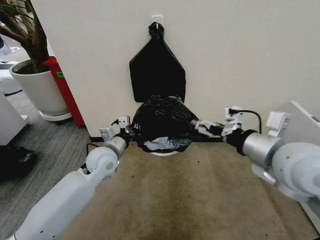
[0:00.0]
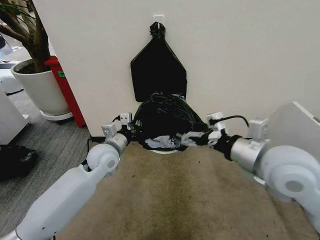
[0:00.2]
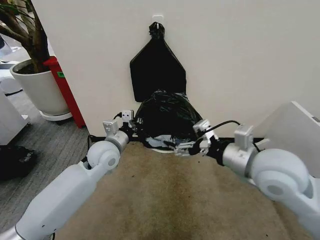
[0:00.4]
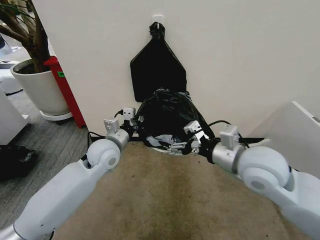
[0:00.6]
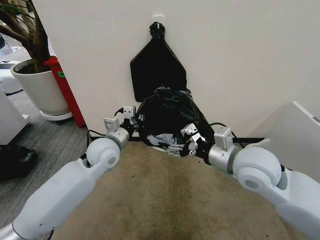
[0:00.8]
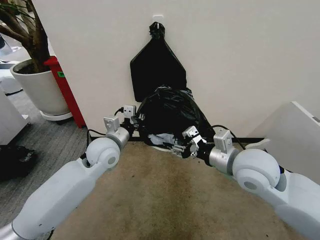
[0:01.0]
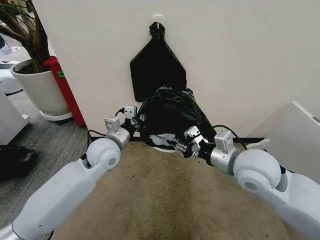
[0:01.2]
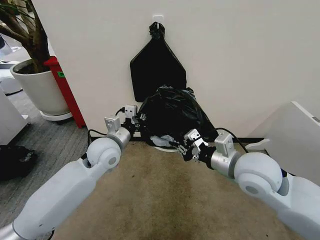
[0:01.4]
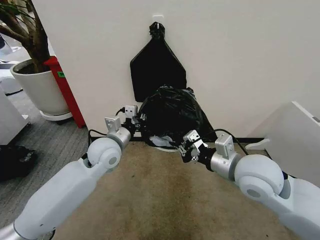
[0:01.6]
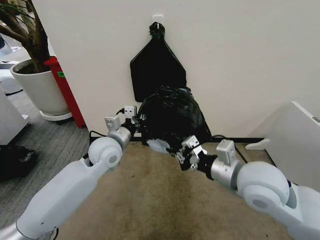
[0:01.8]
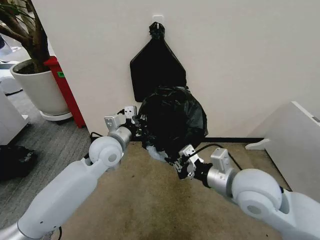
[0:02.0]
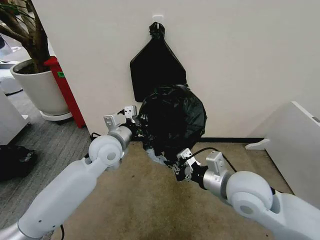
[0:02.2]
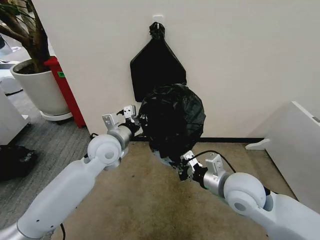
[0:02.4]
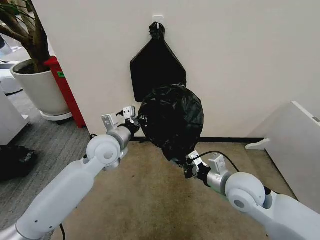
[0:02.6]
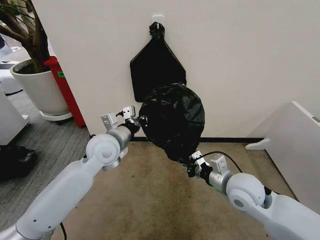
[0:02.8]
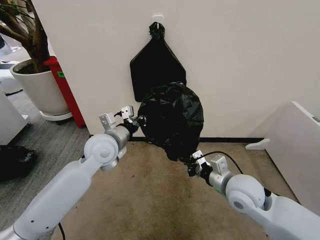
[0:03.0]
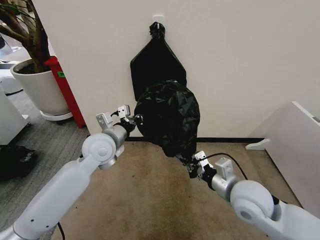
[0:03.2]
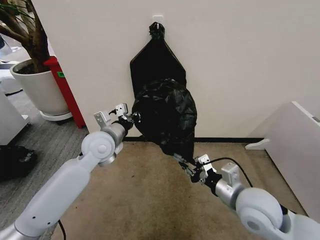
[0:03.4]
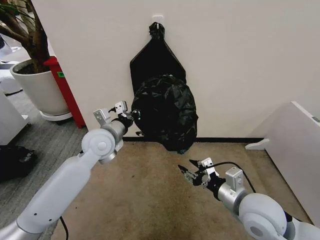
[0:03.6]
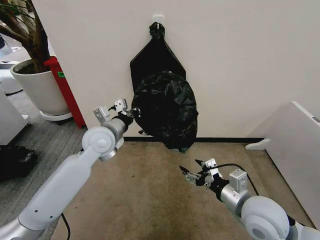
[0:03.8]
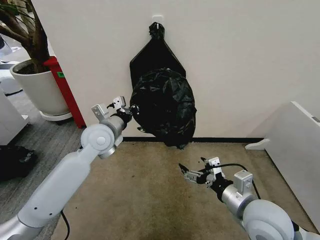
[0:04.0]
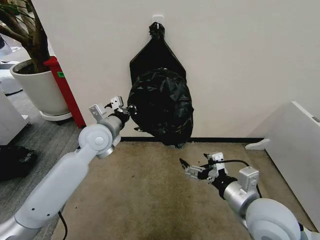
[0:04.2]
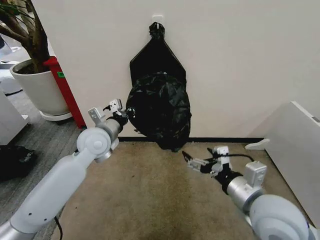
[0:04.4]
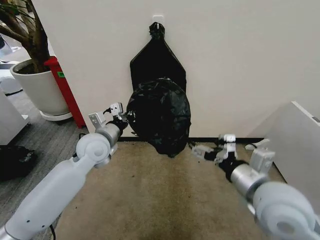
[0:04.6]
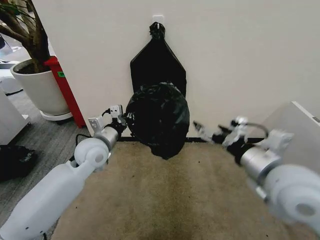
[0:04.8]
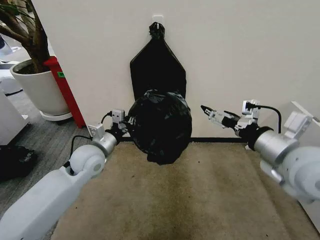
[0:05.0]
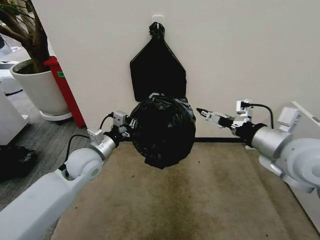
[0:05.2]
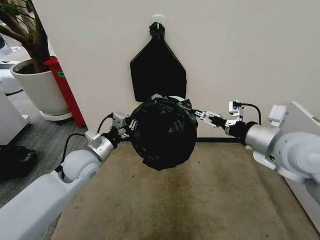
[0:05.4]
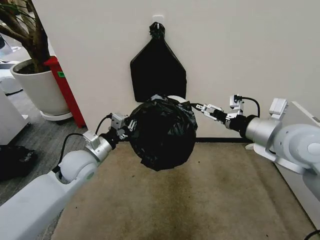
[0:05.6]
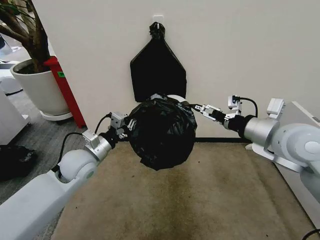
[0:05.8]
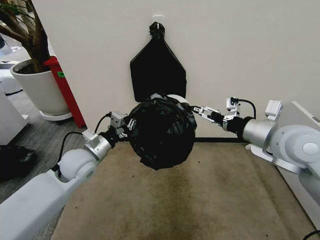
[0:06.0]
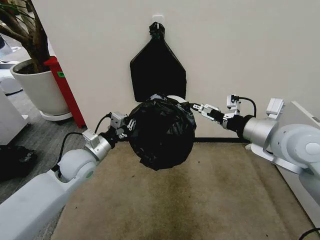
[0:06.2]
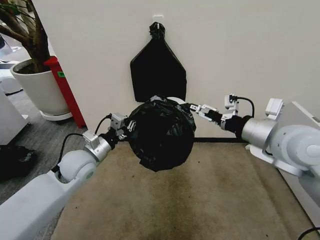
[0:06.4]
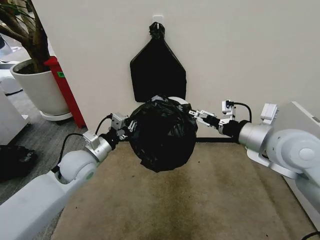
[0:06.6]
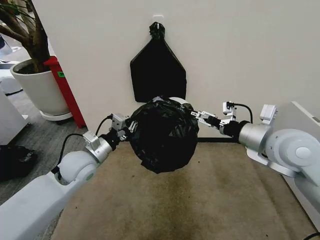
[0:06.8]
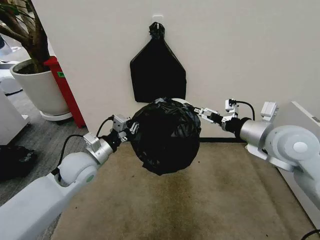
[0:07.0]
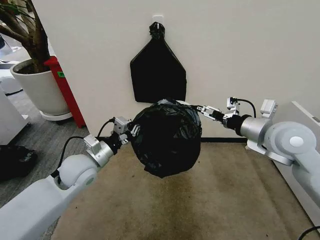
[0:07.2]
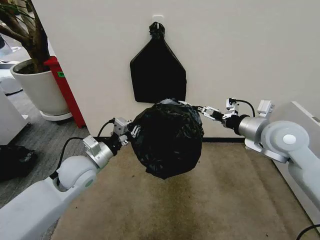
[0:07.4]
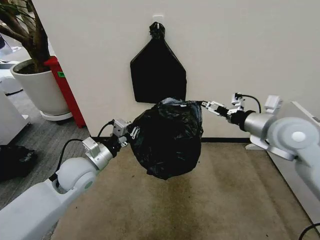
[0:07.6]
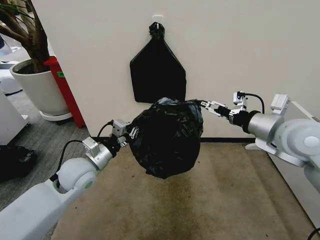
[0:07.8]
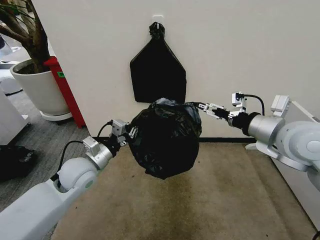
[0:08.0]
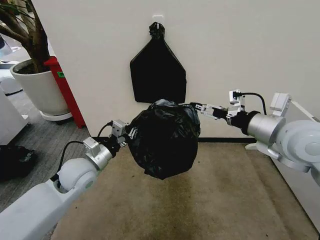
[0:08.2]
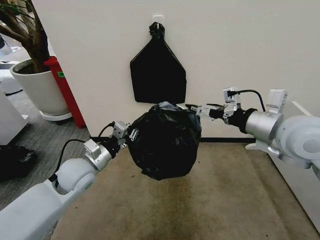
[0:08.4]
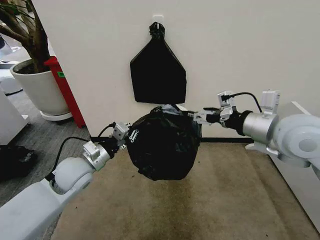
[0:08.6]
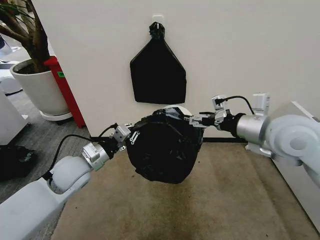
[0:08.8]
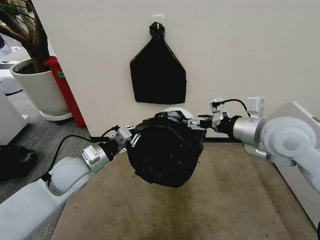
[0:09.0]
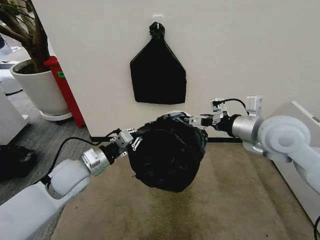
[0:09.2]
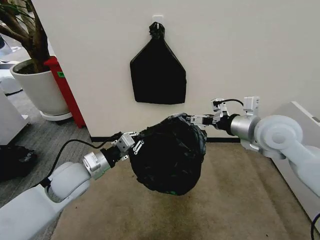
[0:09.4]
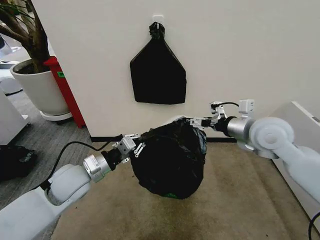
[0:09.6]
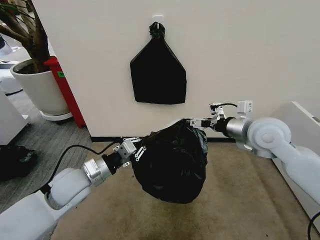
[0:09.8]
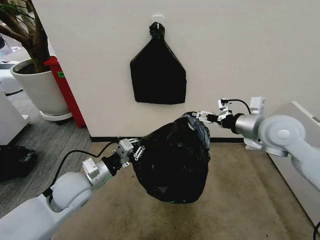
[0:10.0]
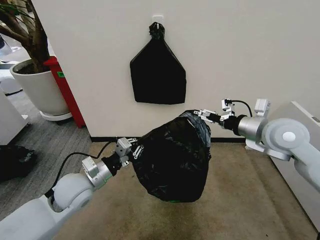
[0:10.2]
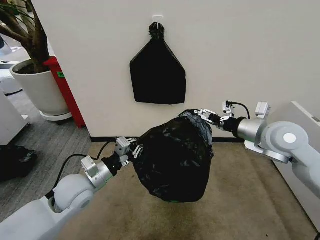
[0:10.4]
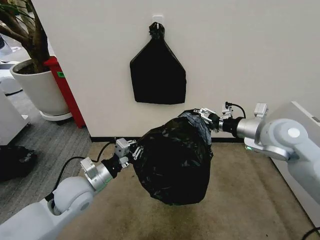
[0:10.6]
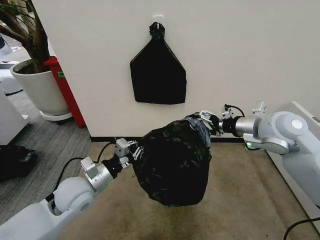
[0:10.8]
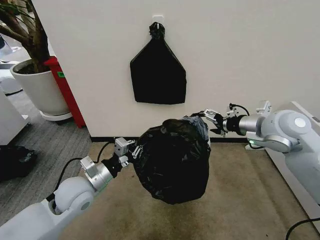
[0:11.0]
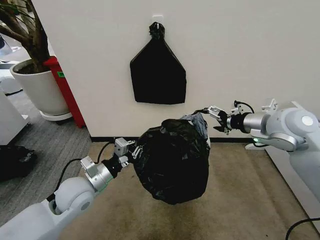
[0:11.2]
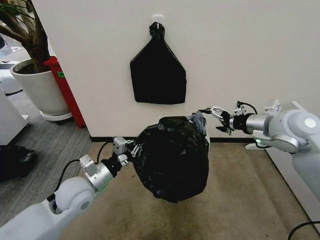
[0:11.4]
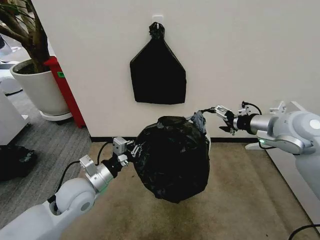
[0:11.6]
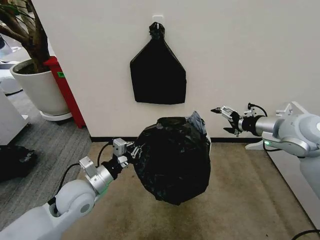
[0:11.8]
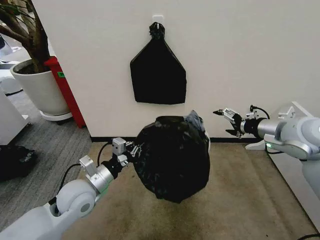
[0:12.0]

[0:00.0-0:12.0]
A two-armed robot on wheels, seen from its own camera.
Task of the whole recording: Place the garbage bag over the trash bin.
0:00.0 to 0:01.6: The right gripper goes some 5 cm downward, and closes its fingers.
0:01.6 to 0:03.0: The right gripper heads downward, covering about 10 cm.
0:03.0 to 0:04.4: The right gripper heads backward, covering approximately 10 cm, and opens.
0:04.4 to 0:06.0: The left gripper moves downward, backward and to the left, approximately 10 cm; the right gripper moves forward, upward and to the right, approximately 20 cm.
0:06.0 to 0:07.6: The grippers make only small movements.
0:07.6 to 0:09.0: The right gripper changes place by some 5 cm.
0:09.0 to 0:10.4: The left gripper shifts by about 5 cm. Meanwhile the right gripper moves about 5 cm.

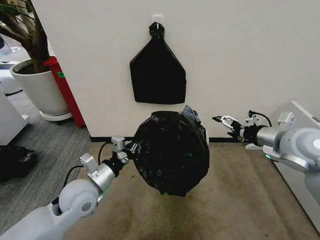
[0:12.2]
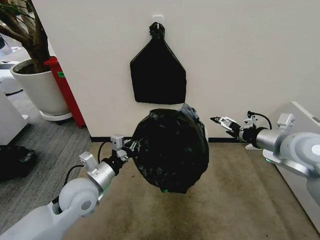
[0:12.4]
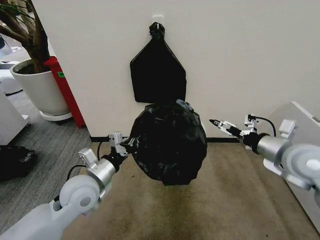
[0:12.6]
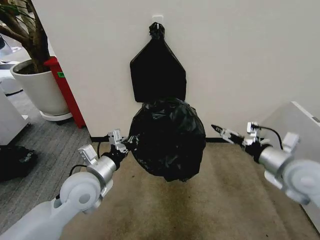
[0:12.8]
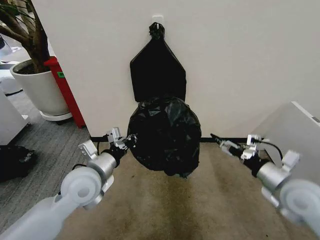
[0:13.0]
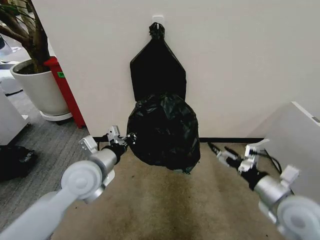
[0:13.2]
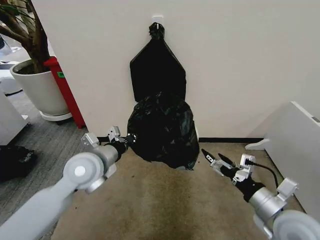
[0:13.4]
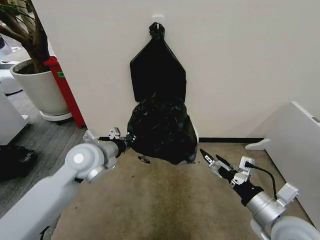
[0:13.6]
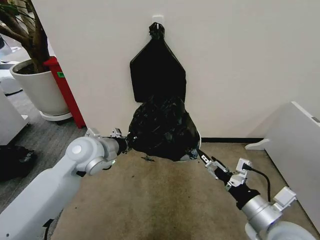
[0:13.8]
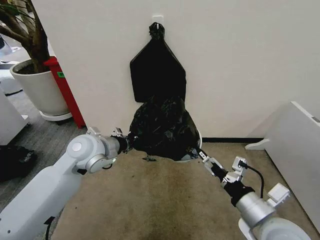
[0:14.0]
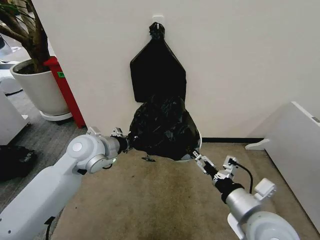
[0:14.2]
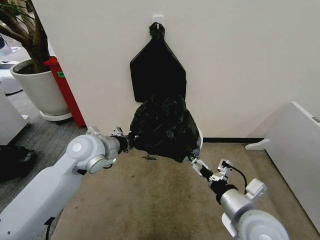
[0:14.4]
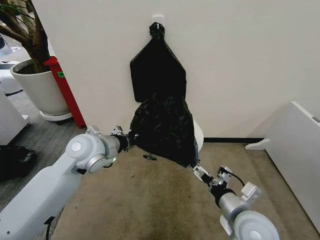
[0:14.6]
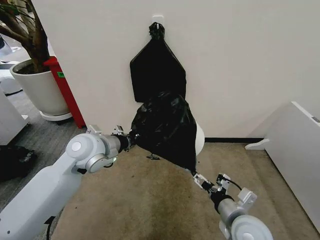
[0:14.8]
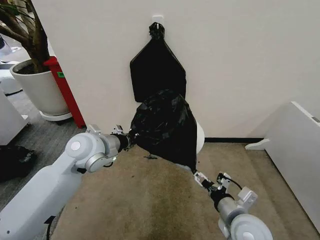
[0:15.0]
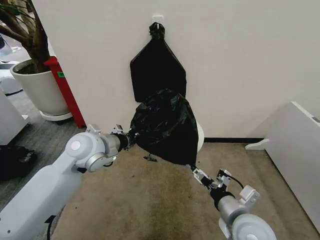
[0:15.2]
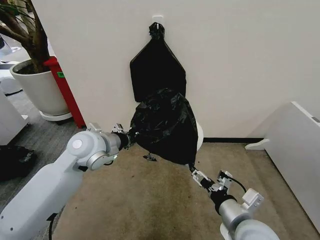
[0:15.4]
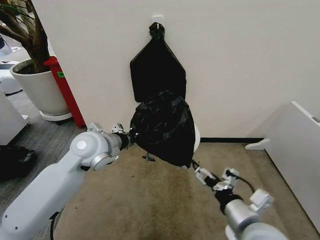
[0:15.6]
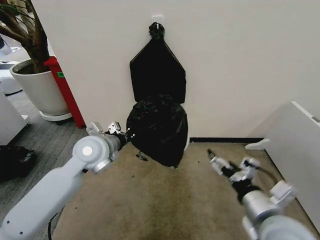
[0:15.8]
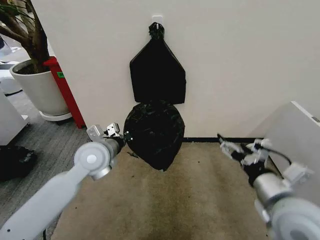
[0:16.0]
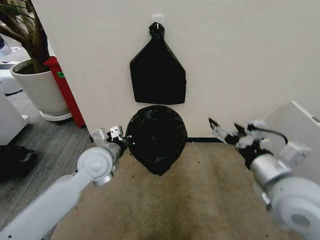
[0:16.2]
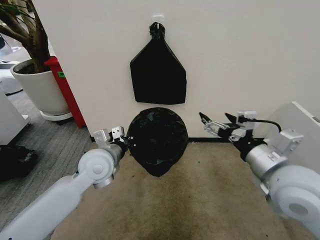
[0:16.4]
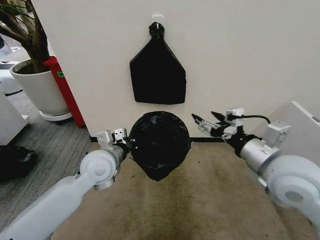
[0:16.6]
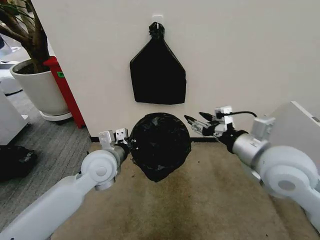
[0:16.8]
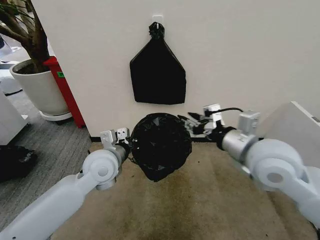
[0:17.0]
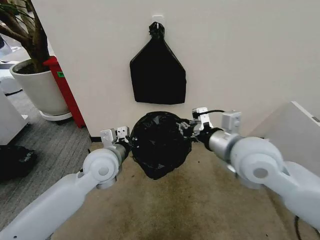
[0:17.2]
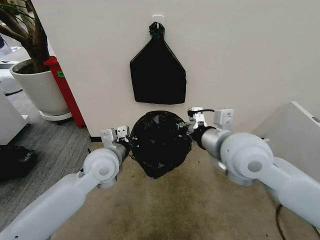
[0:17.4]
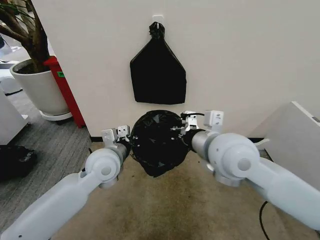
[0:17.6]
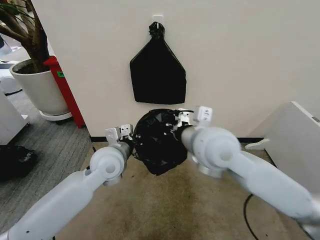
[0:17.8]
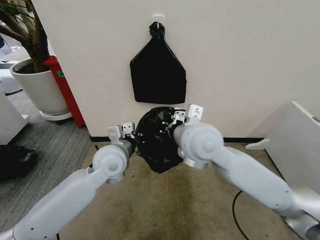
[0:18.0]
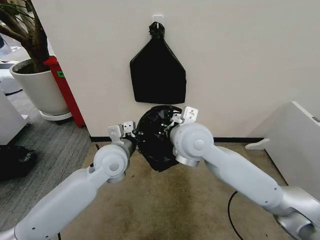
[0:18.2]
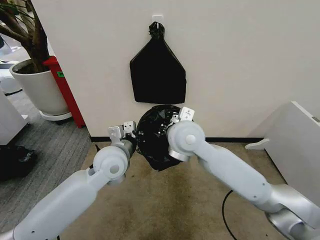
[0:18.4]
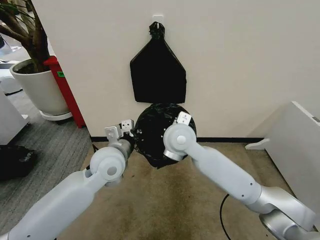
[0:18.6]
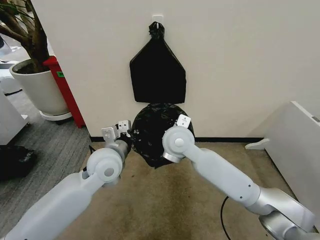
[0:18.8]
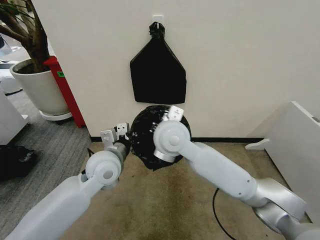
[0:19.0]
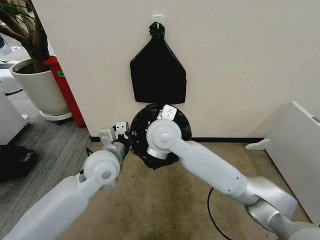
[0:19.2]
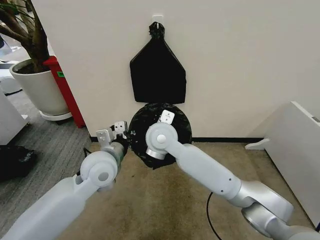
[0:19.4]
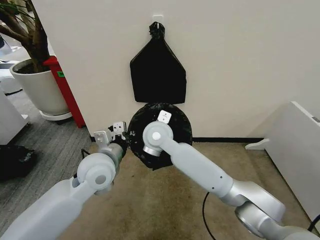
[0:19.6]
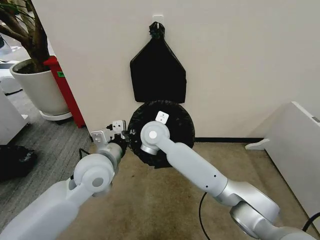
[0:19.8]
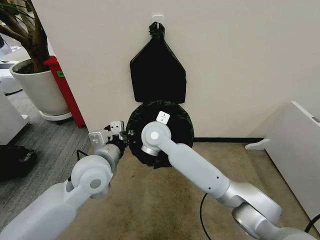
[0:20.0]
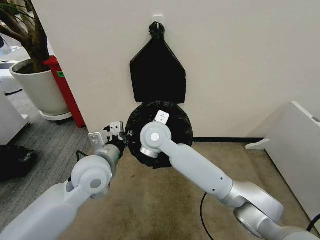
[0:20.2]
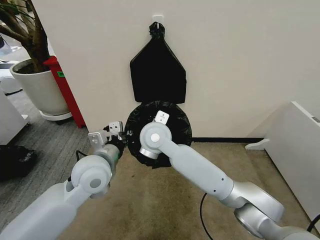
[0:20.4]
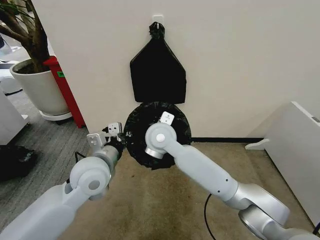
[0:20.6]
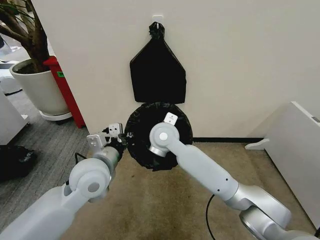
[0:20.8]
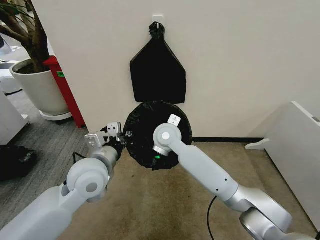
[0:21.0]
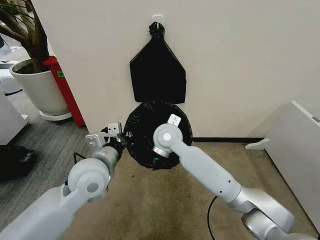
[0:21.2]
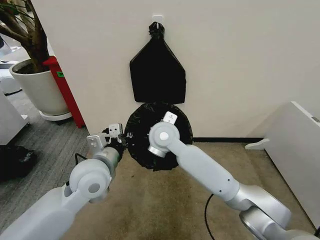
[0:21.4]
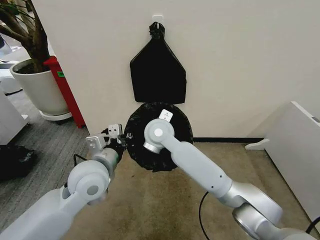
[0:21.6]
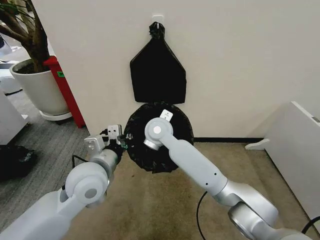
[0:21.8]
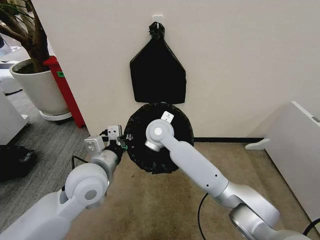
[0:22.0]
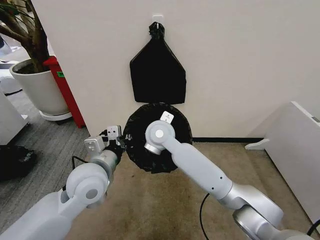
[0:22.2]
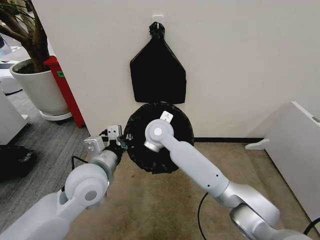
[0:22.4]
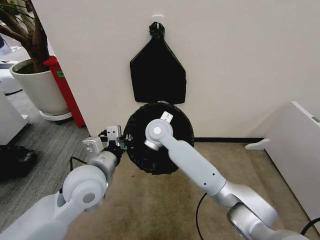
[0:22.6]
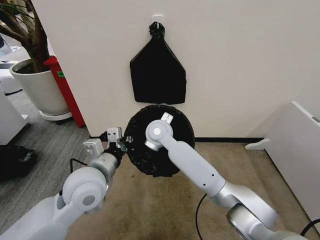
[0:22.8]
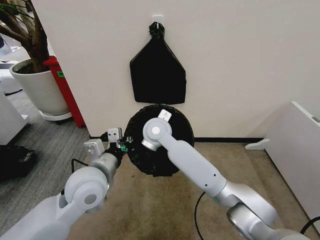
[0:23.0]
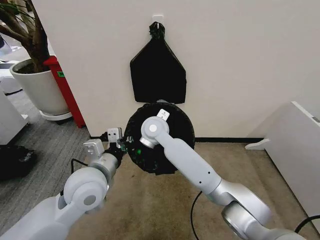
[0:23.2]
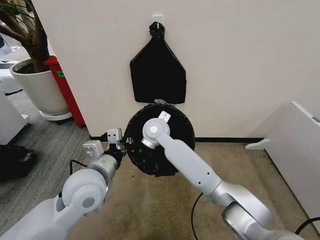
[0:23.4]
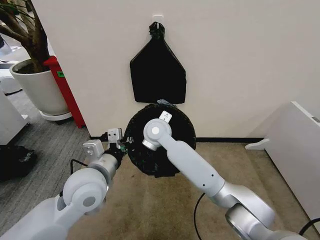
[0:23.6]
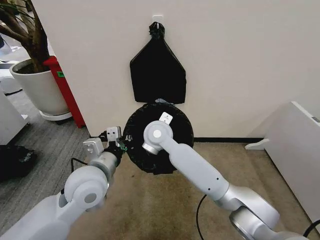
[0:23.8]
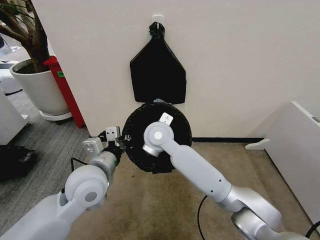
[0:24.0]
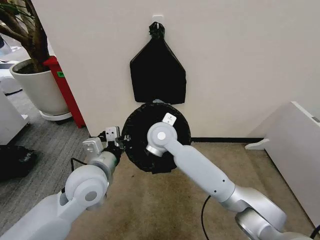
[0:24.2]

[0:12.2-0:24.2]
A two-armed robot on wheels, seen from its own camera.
Task of the whole recording: Place the garbage bag over the trash bin.
0:12.2 to 0:13.8: The left gripper is displaced upward and forward by about 10 cm; the right gripper travels backward, downward and to the left by about 25 cm.
0:13.8 to 0:15.2: The right gripper goes some 5 cm to the left.
0:15.2 to 0:16.6: The right gripper shifts roughly 15 cm upward. Meanwhile the left gripper shifts by some 5 cm.
0:16.6 to 0:18.2: The right gripper goes some 20 cm to the left and forward, and closes.
0:18.2 to 0:19.8: The right gripper goes about 15 cm to the left, forward and downward, while the left gripper changes place by roughly 5 cm.
0:19.8 to 0:24.2: The grippers stay close to where they were, moving slightly.
